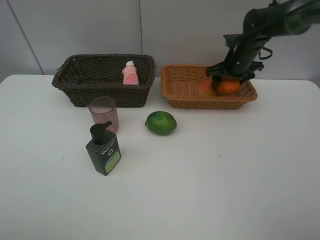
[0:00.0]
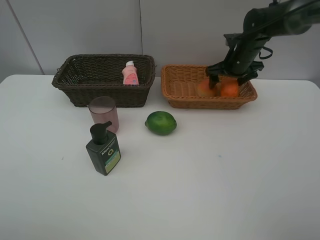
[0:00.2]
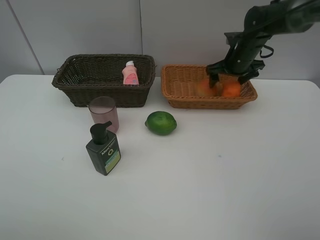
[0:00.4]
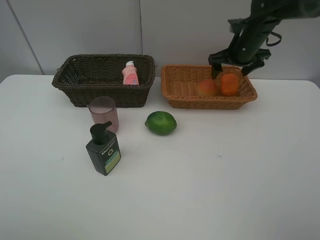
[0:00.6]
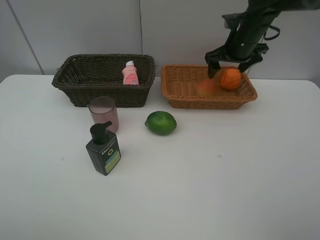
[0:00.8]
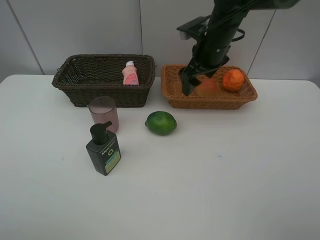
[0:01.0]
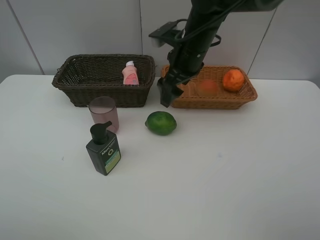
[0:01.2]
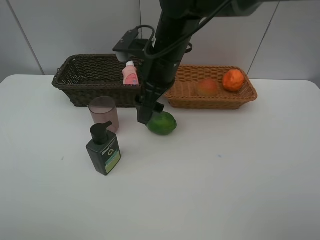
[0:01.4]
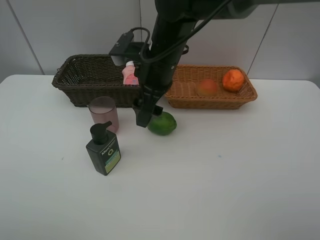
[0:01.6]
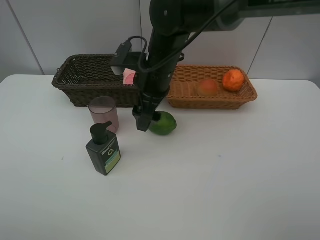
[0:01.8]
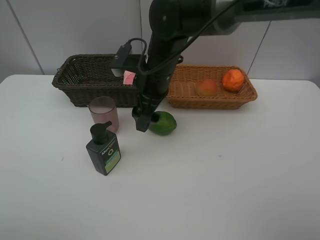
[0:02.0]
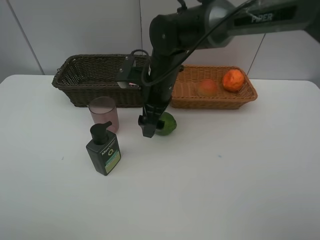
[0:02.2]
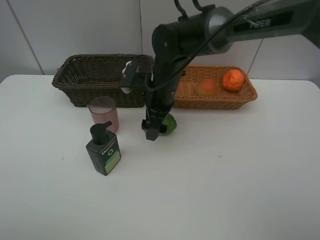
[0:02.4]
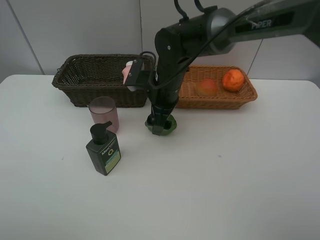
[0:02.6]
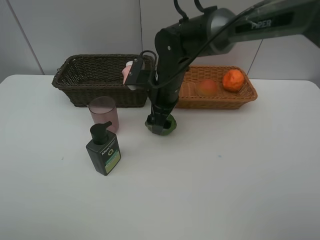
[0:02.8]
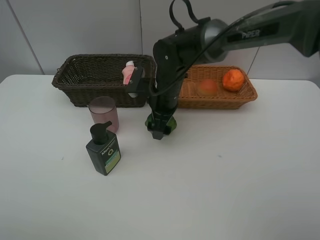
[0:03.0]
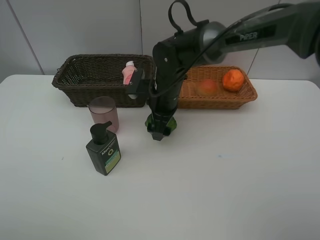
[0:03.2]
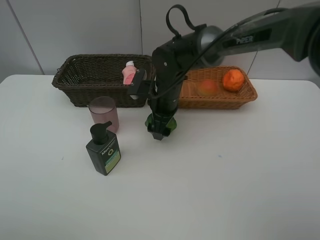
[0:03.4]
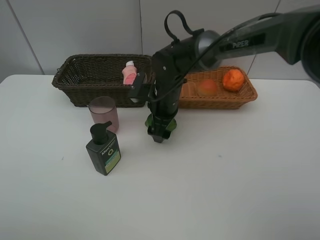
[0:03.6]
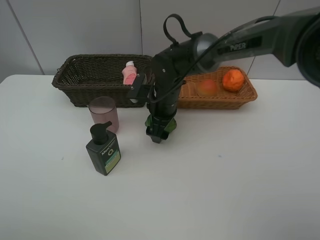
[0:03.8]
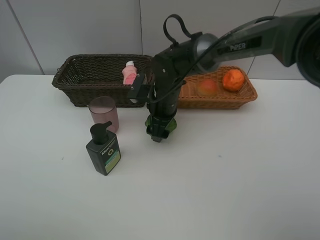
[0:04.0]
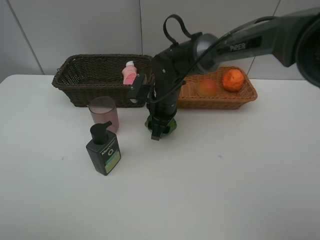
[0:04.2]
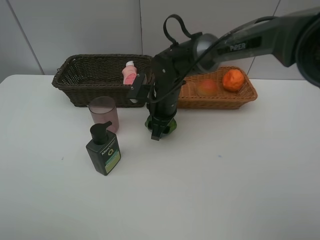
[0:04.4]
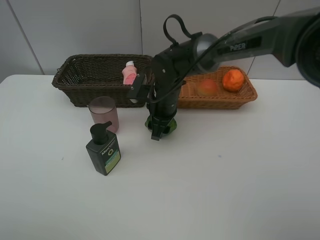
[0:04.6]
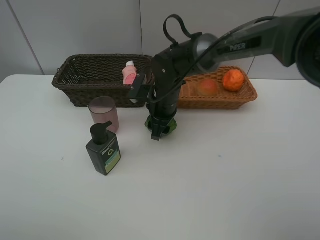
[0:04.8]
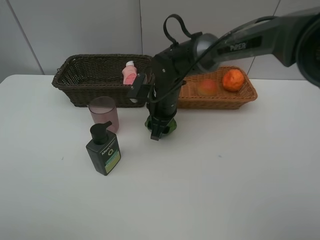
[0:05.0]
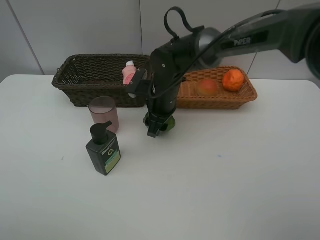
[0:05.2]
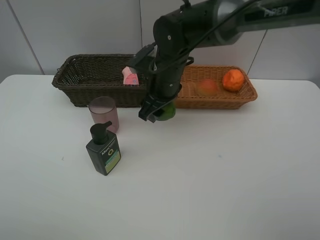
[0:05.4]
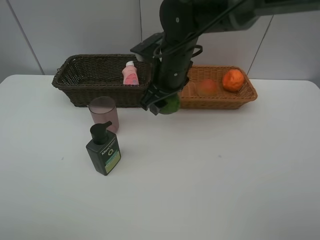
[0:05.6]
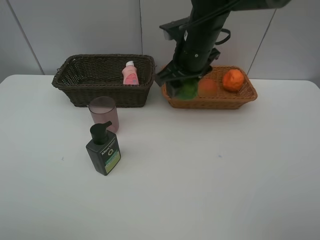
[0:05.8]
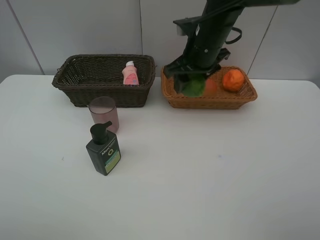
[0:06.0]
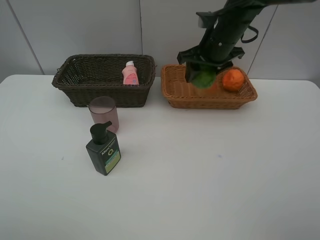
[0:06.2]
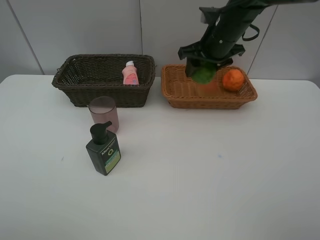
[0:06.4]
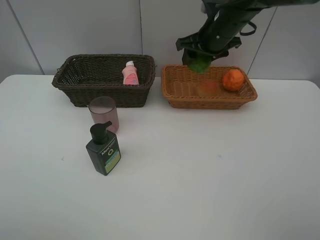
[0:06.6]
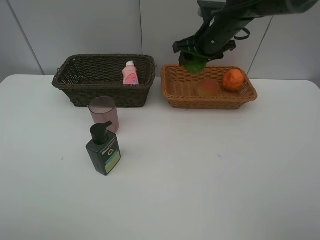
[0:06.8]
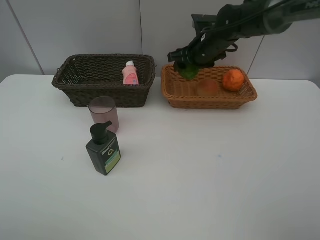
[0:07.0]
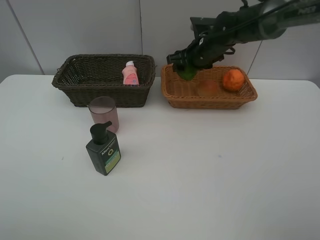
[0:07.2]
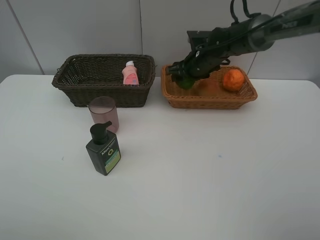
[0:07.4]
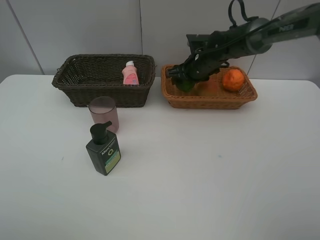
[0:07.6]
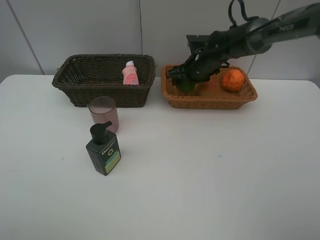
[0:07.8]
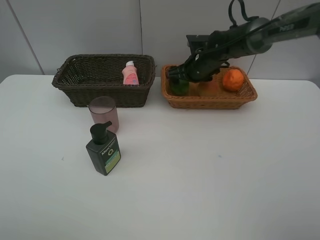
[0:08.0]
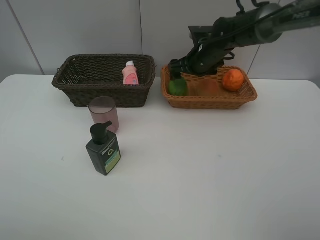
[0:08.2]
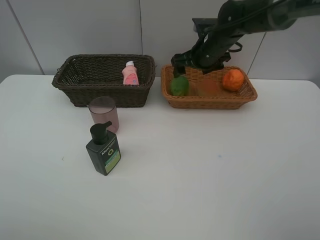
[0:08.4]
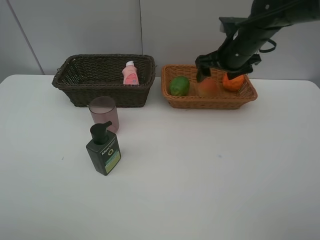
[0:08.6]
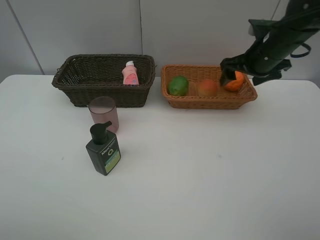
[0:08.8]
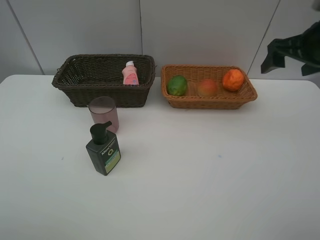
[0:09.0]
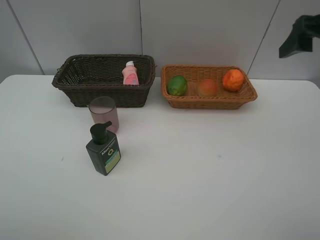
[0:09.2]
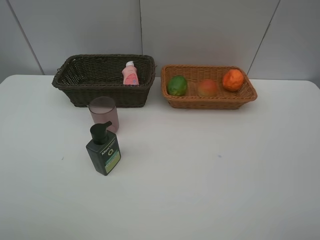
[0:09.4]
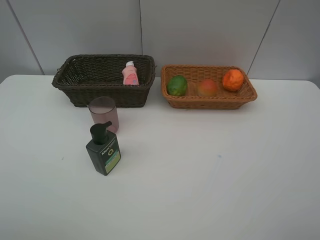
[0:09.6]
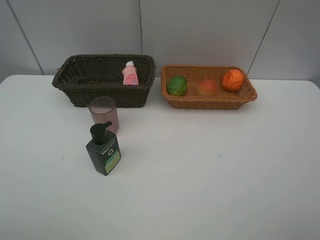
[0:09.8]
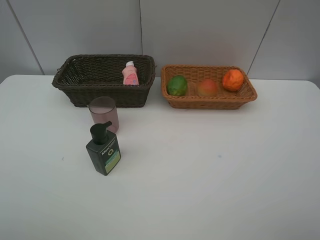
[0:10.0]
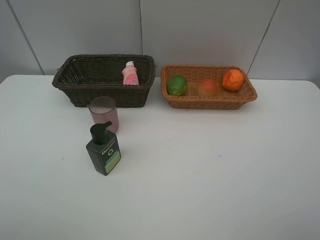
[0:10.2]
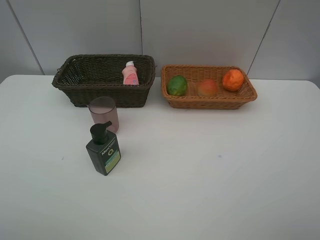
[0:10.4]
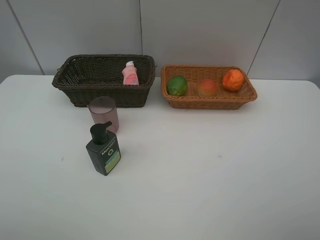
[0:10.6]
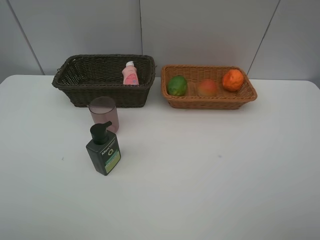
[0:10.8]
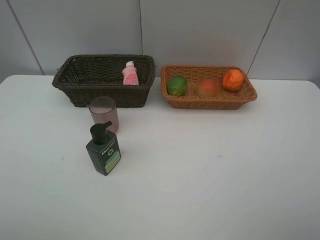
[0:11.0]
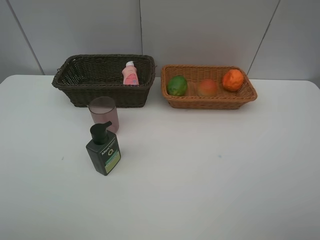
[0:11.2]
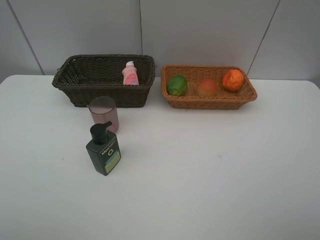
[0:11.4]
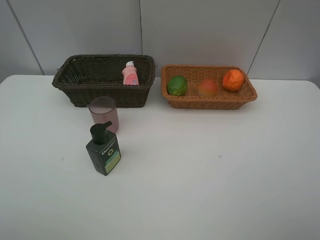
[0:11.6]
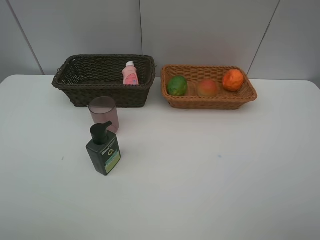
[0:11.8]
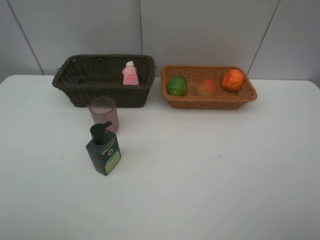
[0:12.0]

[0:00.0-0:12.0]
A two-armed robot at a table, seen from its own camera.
Task of the whole recording: place multiple objects separately in different baskets.
0:00.0 to 0:01.6: The right gripper travels to the left and backward by roughly 25 cm.
0:01.6 to 0:03.0: The right gripper travels downward by roughly 10 cm.
0:03.0 to 0:04.4: The right gripper closes.
0:04.4 to 0:06.0: The right gripper shifts approximately 15 cm upward and to the right.
0:06.0 to 0:07.6: The right gripper is displaced downward and forward by approximately 15 cm.
0:07.6 to 0:09.0: The right gripper travels backward, to the right and upward by roughly 30 cm, and opens its fingers.
0:09.0 to 0:10.4: The right gripper moves backward, some 30 cm.

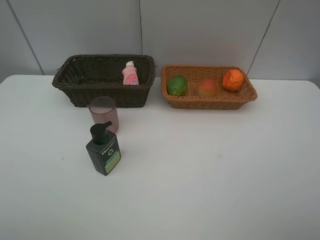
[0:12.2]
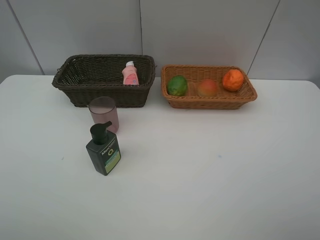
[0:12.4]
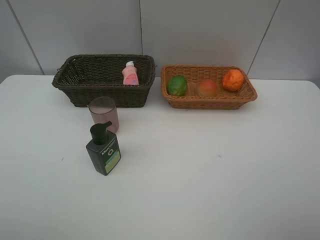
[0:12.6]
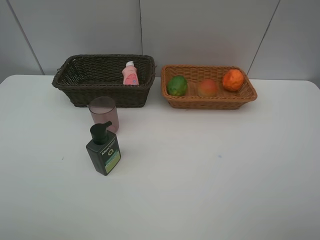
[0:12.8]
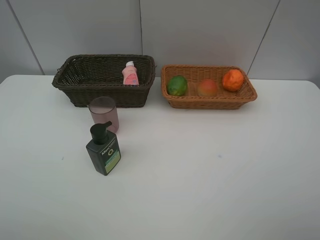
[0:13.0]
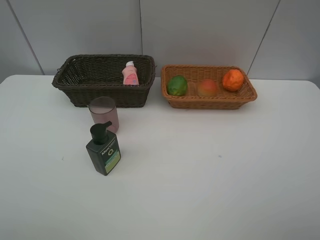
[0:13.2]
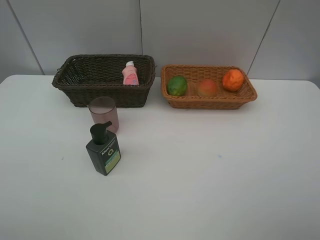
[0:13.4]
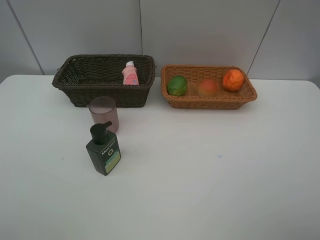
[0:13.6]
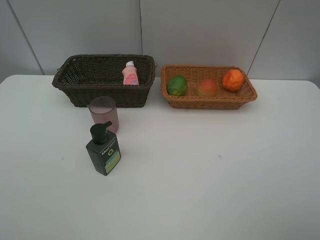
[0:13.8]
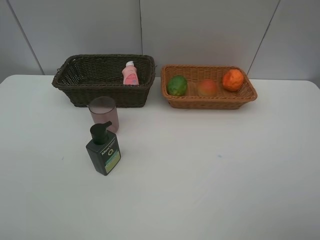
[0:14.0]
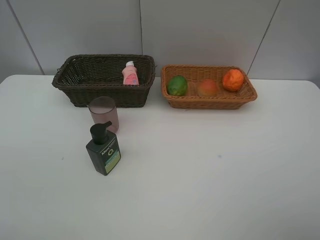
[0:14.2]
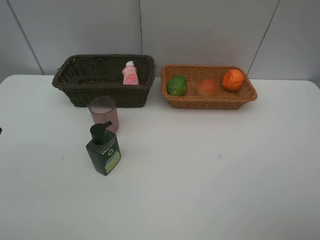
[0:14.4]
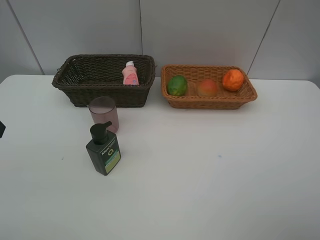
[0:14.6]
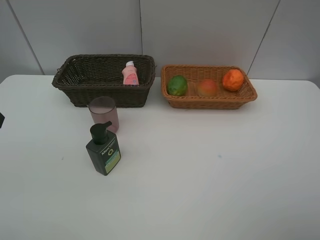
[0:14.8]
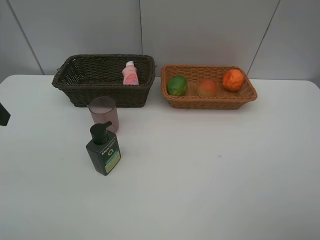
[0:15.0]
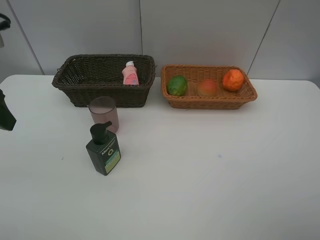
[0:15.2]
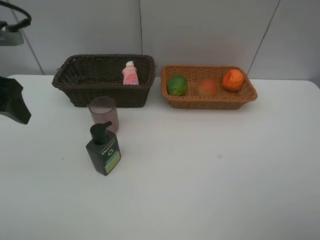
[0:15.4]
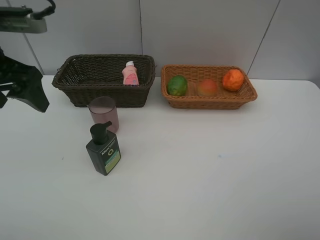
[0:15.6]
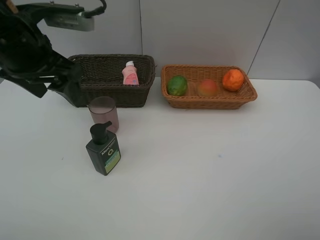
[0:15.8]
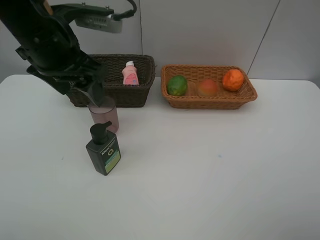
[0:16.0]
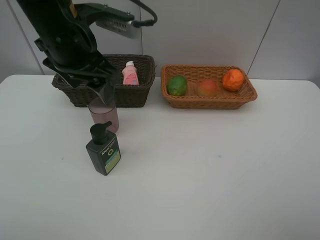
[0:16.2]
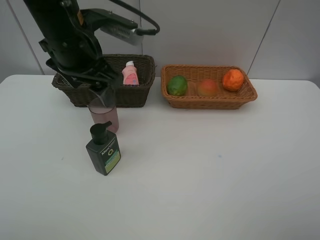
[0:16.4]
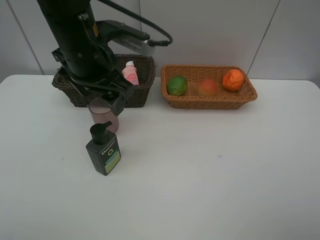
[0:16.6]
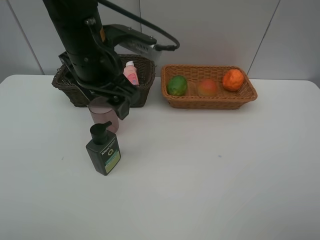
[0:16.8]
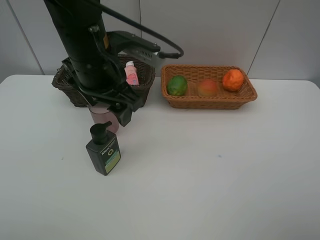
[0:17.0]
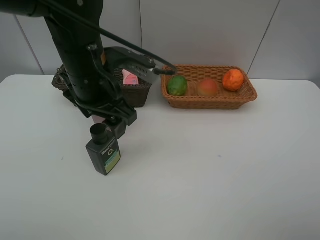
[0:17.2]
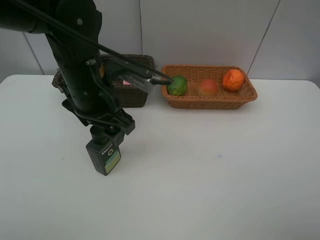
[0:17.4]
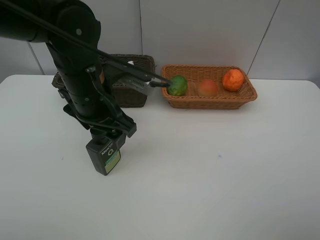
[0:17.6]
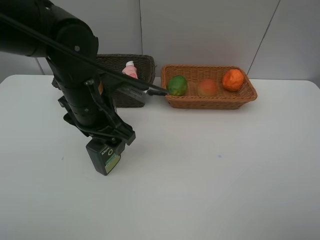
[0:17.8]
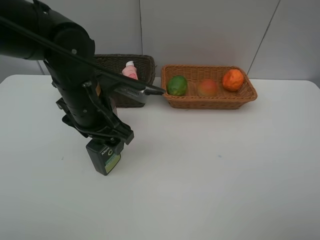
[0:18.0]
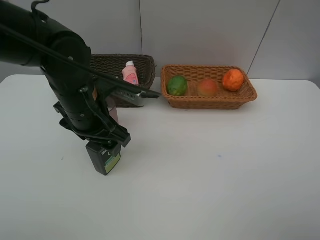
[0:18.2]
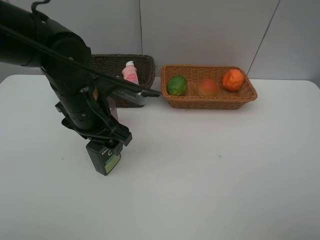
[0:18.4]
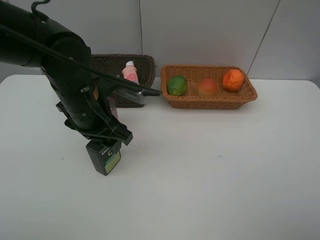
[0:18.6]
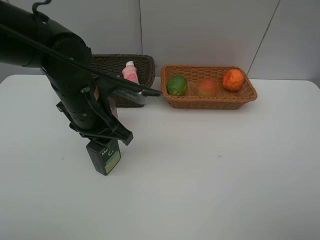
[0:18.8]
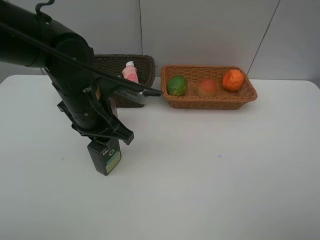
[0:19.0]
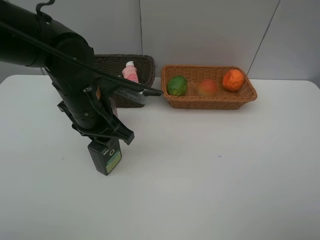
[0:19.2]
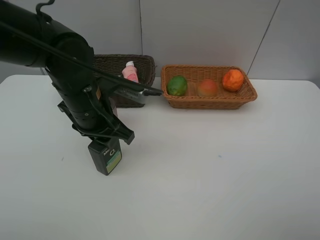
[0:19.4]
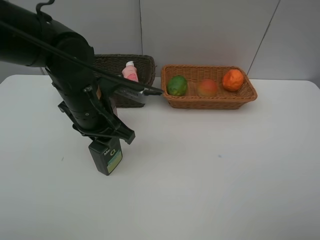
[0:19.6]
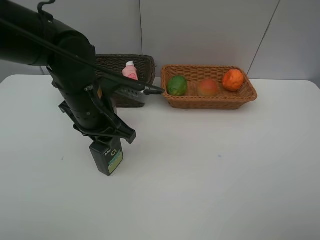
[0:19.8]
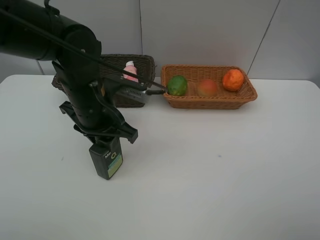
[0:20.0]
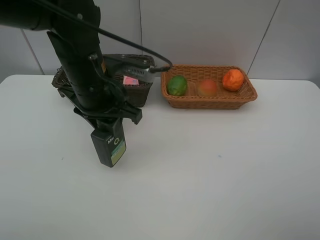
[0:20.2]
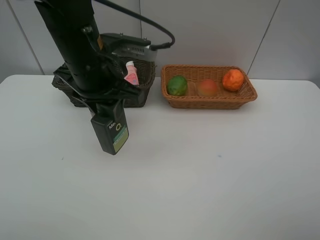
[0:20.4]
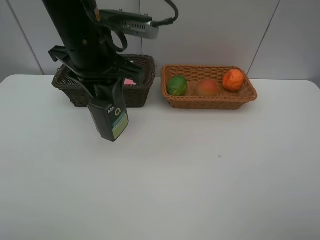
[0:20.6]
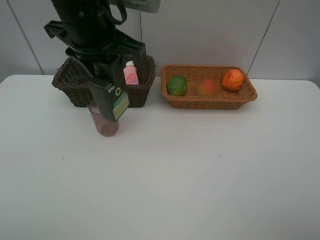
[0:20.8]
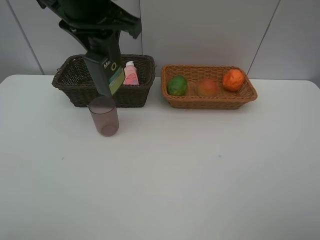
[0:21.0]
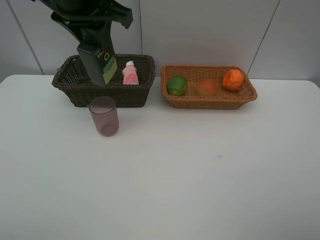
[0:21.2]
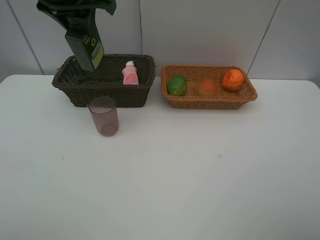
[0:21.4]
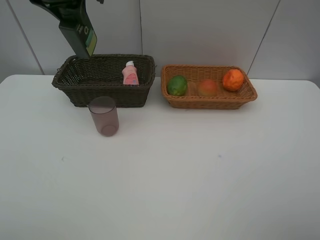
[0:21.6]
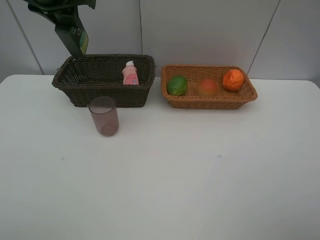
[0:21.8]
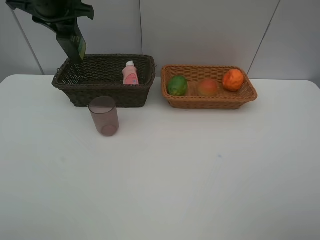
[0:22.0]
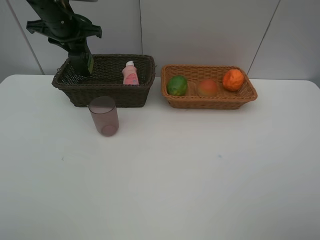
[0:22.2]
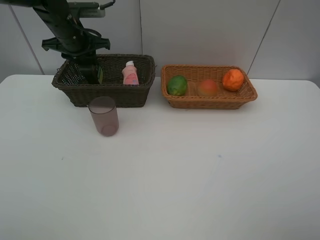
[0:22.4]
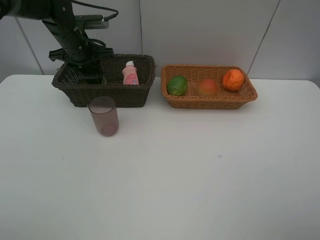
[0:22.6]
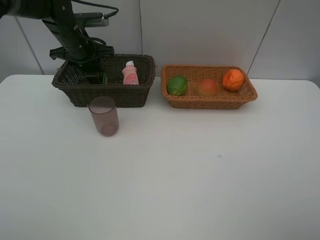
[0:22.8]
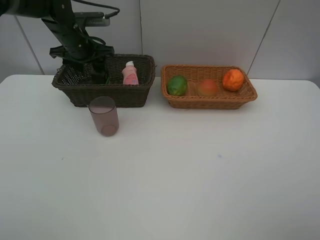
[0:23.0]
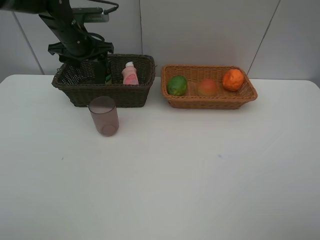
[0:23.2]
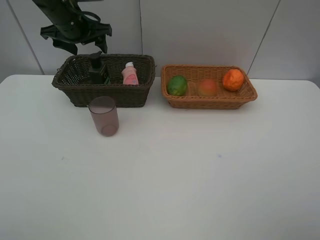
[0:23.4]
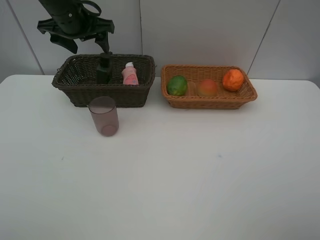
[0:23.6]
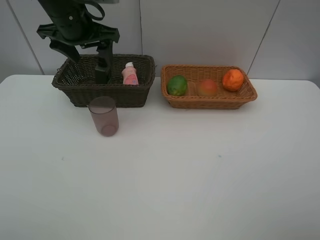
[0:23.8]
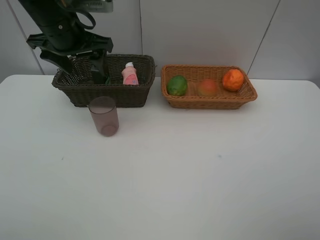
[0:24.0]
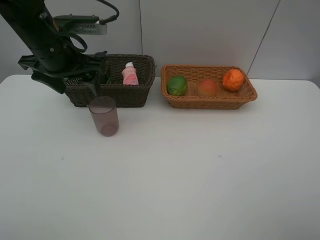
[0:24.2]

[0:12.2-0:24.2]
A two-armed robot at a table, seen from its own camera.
Task of the whole recording: place multiple objects separately in different baskets.
0:13.8 to 0:15.2: The left gripper heads forward, covering approximately 10 cm.
0:15.2 to 0:16.6: The left gripper moves to the right and forward, approximately 20 cm.
0:16.6 to 0:18.2: The left gripper goes some 10 cm downward.
0:18.2 to 0:19.8: The left gripper closes.
0:19.8 to 0:21.2: The left gripper heads upward, covering roughly 20 cm.
0:21.2 to 0:22.6: The left gripper heads downward, forward and to the left, covering some 25 cm.
0:22.6 to 0:24.2: The left gripper heads backward, covering roughly 15 cm, and opens.
